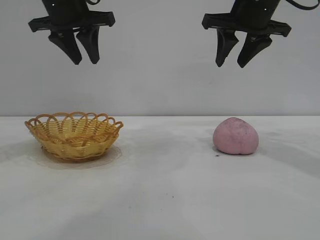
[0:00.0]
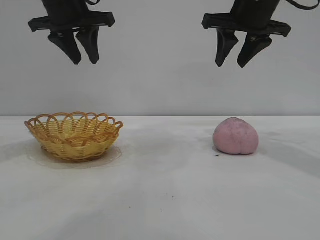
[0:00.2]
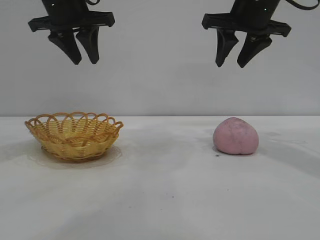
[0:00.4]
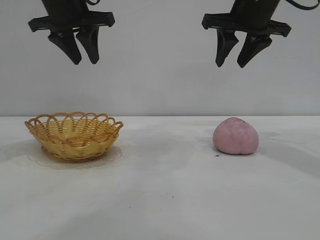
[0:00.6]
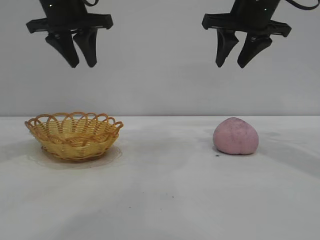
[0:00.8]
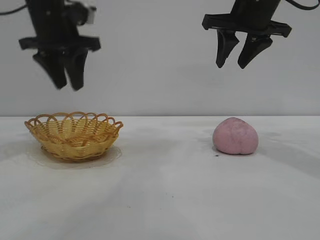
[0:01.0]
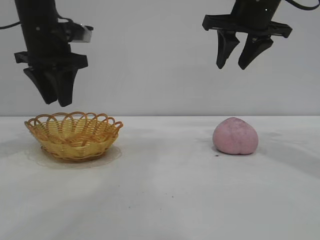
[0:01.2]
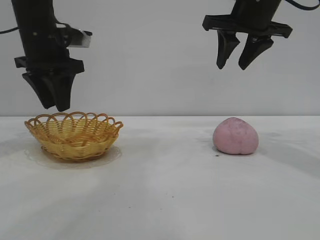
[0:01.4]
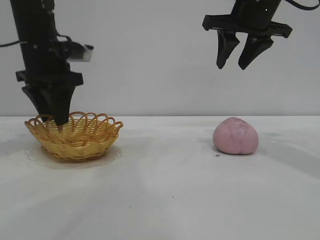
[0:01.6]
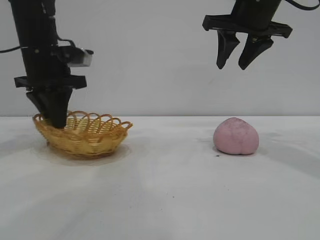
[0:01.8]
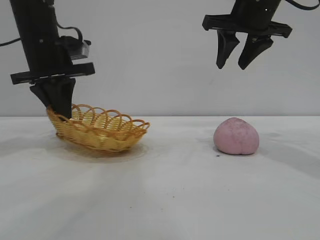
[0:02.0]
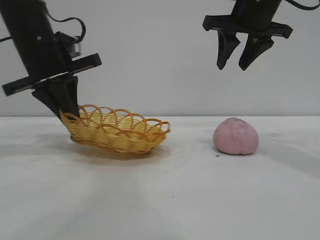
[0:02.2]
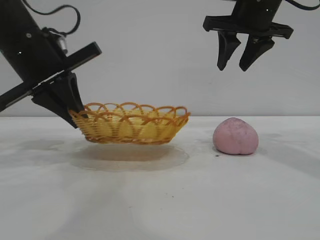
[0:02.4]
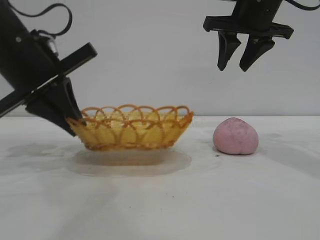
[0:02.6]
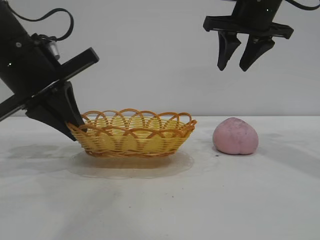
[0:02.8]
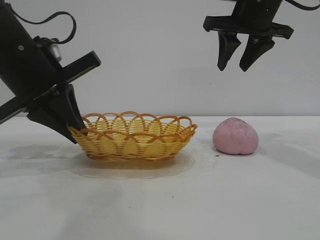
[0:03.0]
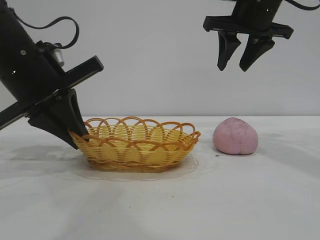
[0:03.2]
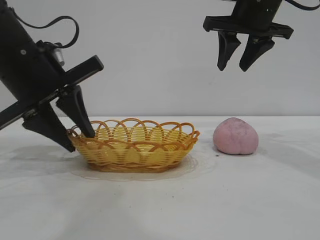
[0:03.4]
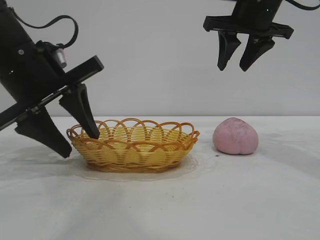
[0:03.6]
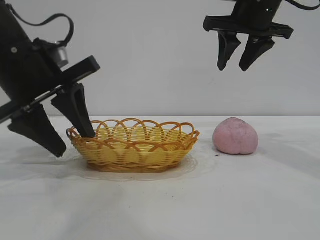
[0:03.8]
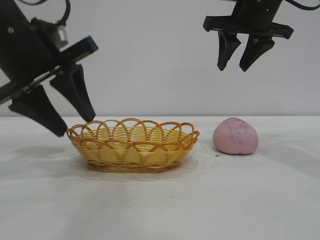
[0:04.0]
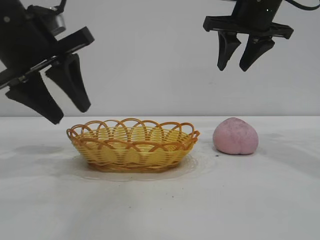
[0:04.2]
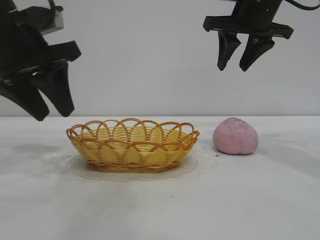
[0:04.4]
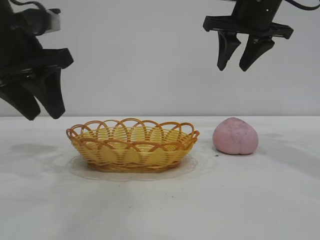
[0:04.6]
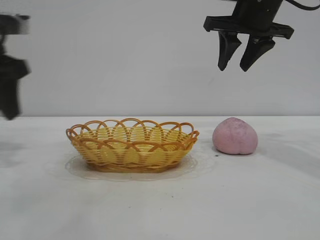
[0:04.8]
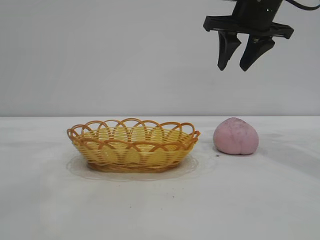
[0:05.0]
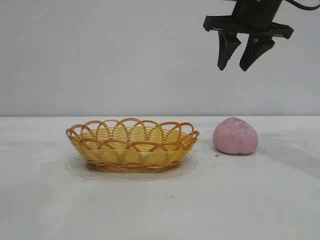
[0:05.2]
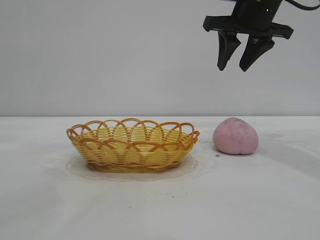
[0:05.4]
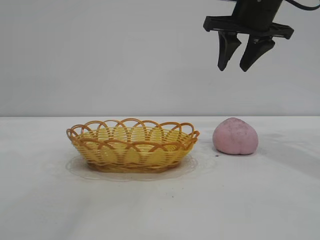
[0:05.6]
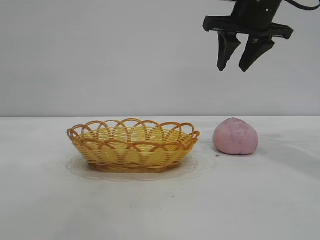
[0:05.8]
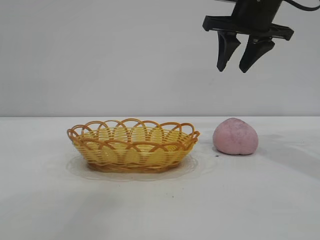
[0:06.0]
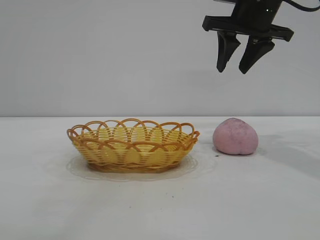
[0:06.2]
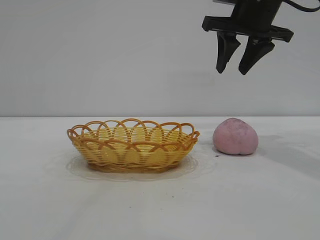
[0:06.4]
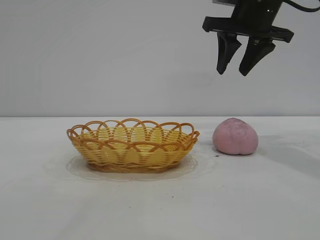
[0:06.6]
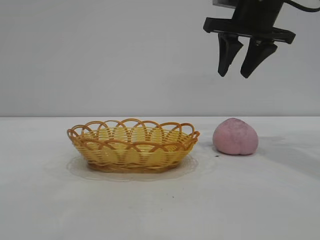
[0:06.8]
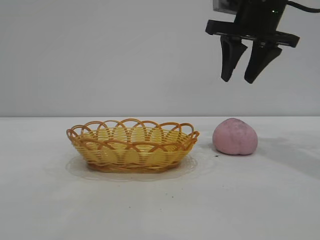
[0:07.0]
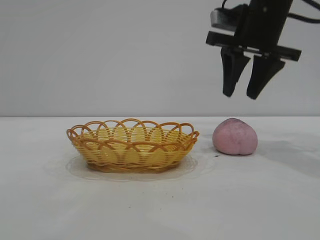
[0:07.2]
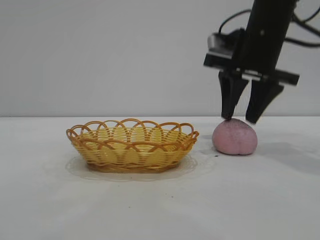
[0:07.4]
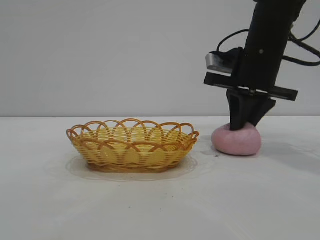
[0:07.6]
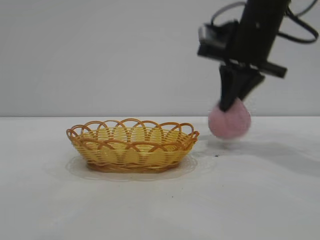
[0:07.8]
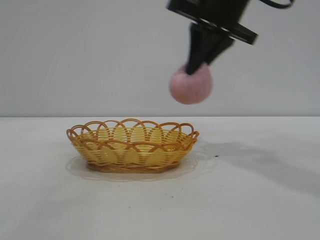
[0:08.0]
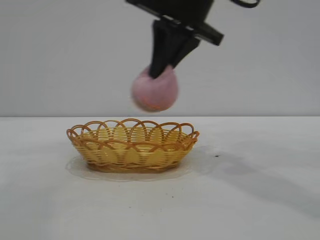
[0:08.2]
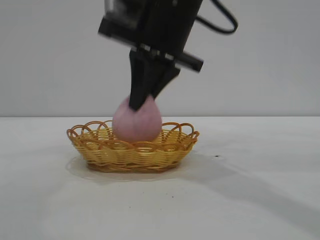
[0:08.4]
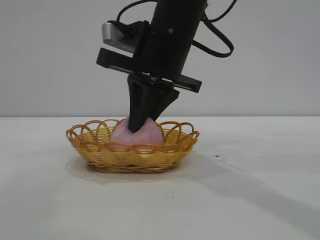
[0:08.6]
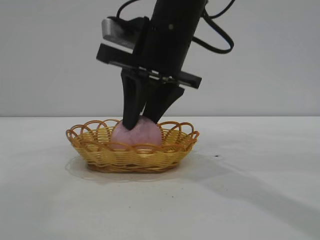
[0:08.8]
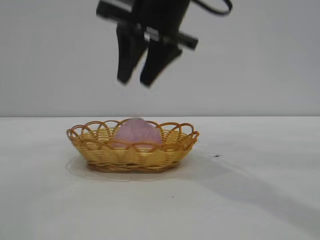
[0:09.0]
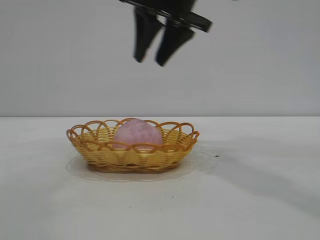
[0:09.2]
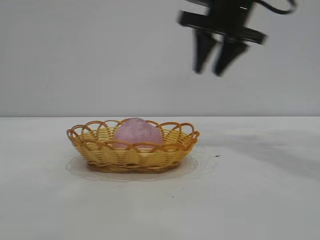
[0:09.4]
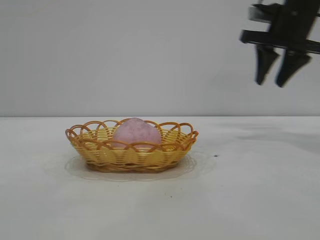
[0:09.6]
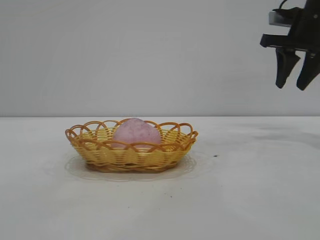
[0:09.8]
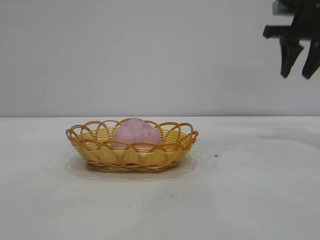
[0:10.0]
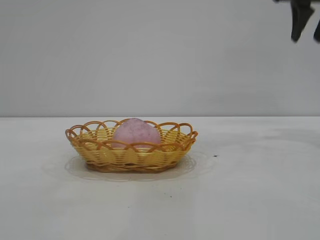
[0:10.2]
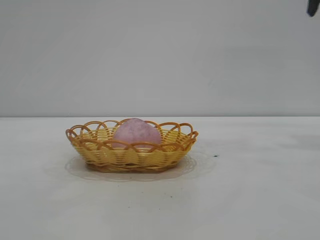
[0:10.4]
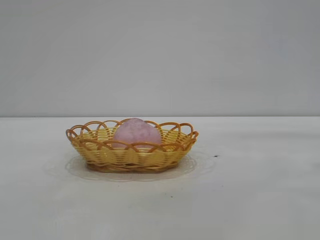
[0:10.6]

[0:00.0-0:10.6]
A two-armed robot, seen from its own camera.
Task of the whole recording: pick up the peach and put it into the basket.
Step, 0:00.0 to 0:04.2: Move the basket to the center of view.
Step, 0:04.4 to 0:07.8: Pick up the peach.
Step, 0:08.0 to 0:08.8: place the peach into the basket.
